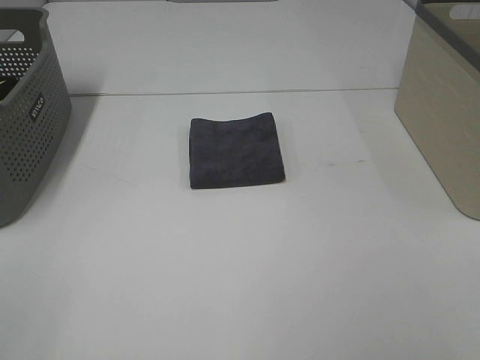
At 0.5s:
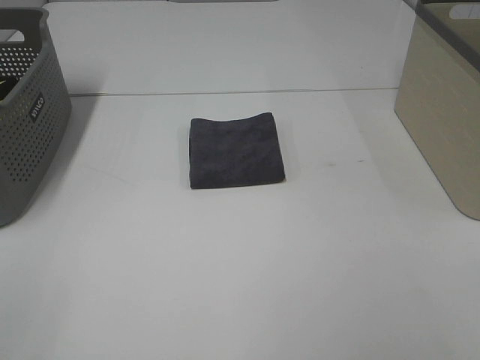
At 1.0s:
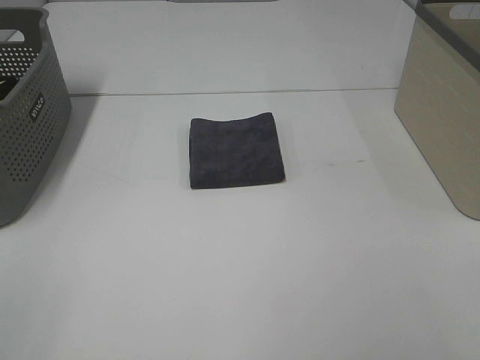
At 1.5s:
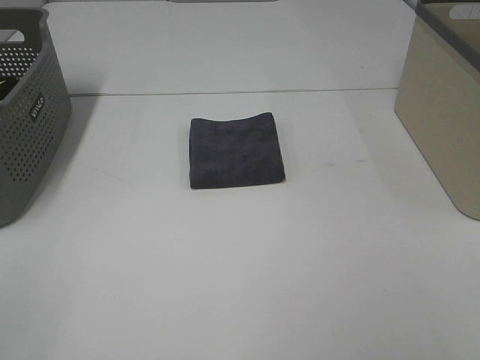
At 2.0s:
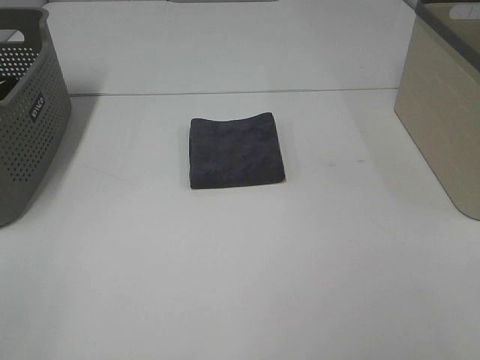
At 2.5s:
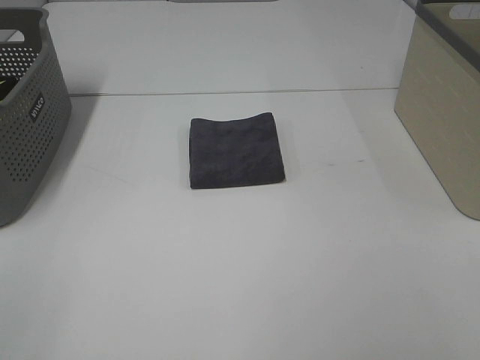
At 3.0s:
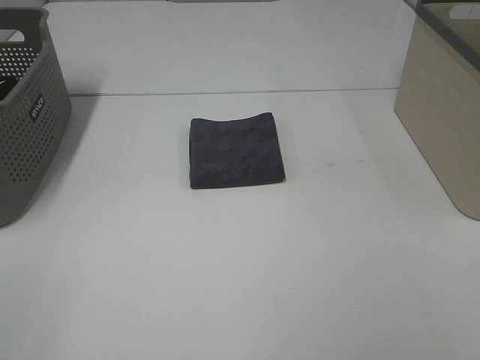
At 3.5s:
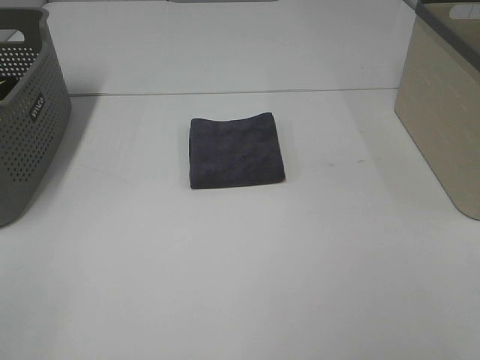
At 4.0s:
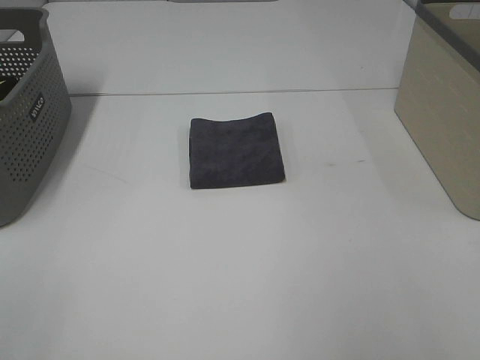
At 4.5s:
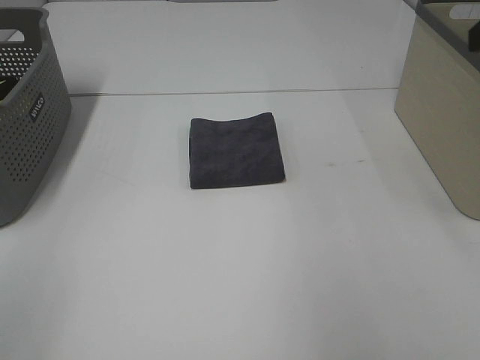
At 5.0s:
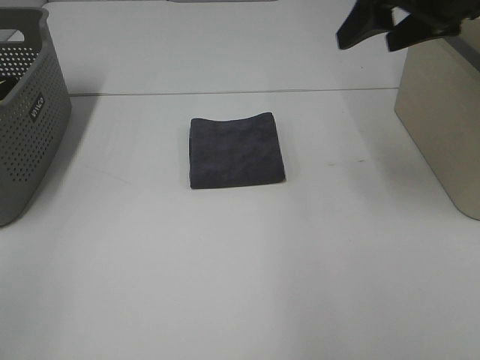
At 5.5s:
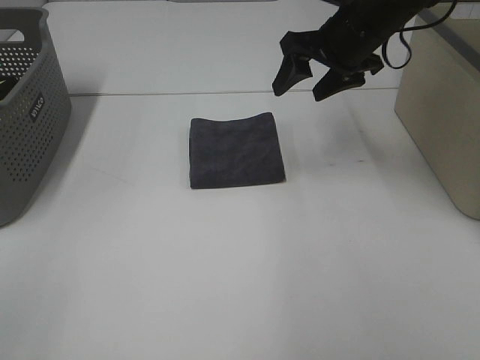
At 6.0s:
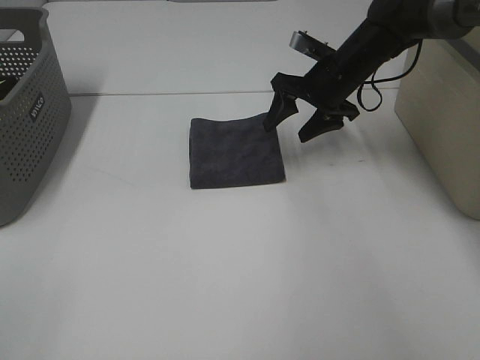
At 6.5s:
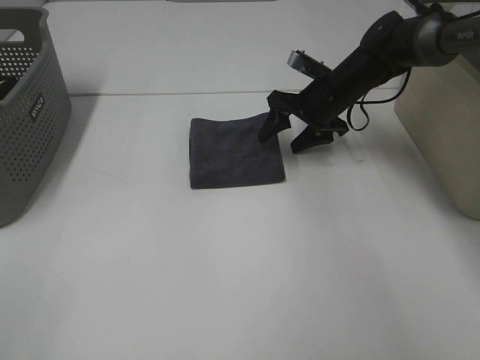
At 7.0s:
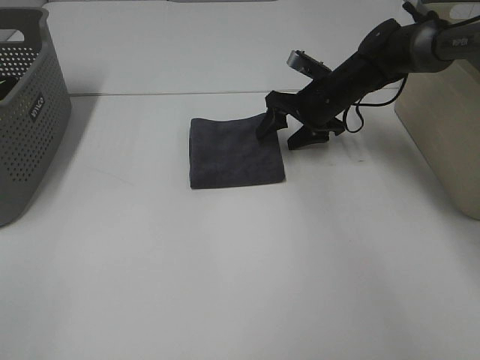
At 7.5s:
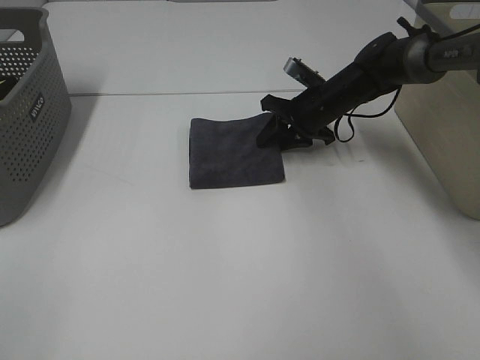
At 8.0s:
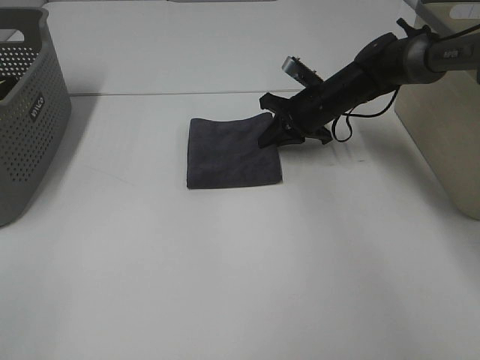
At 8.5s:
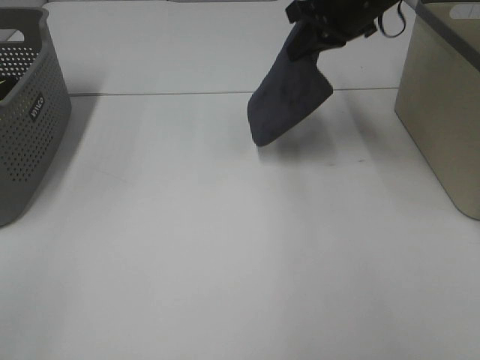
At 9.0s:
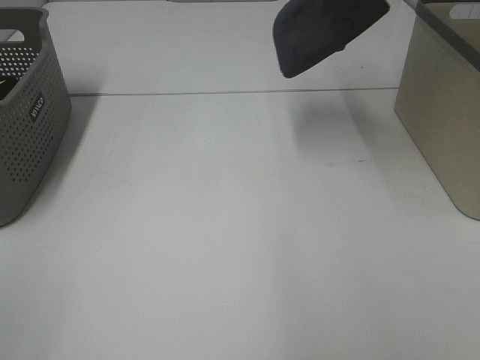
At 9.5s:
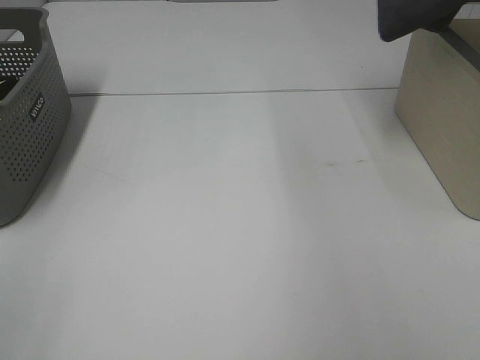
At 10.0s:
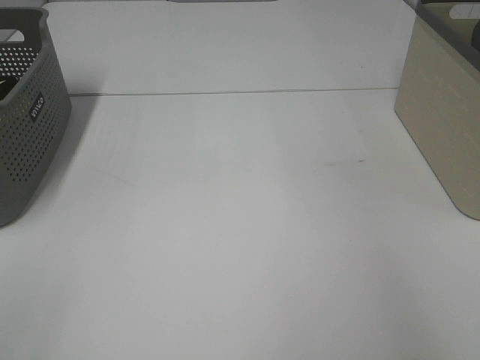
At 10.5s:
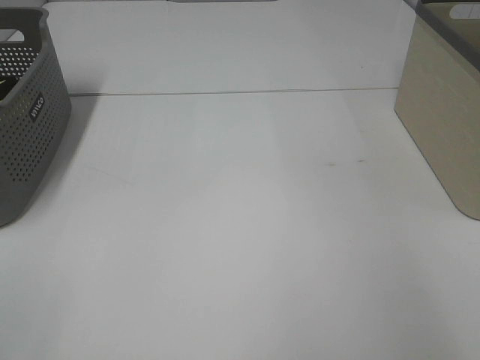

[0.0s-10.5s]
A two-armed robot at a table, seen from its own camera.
Step, 0.0s to 7.5s: Right hand: grab the folded grey towel.
0.0s to 2.0s: The two grippers keep their place.
4.0s to 6.5s: The right gripper is displaced forward and downward by roughly 50 cm.
6.5s to 8.5s: The right gripper is displaced upward by roughly 15 cm, and closes its fingers.
8.5s to 10.5s: The right gripper goes about 25 cm to the right, and opens its fingers.

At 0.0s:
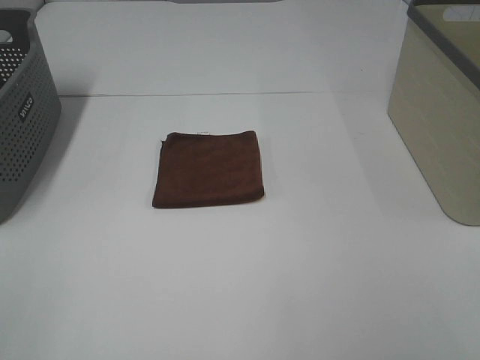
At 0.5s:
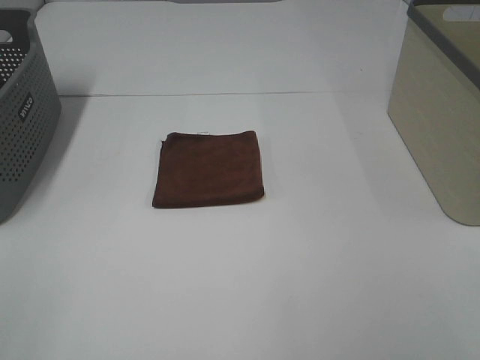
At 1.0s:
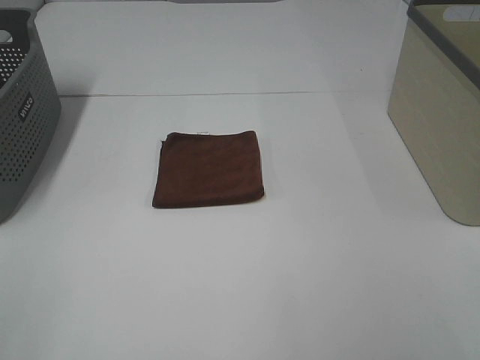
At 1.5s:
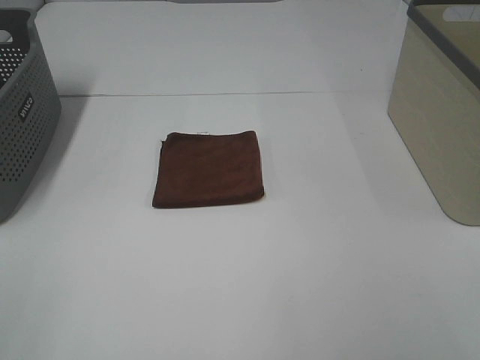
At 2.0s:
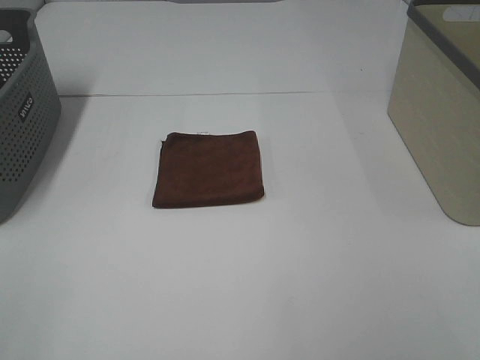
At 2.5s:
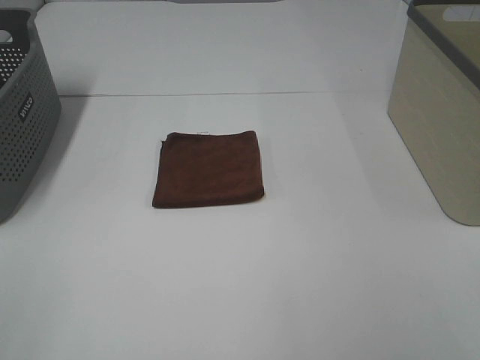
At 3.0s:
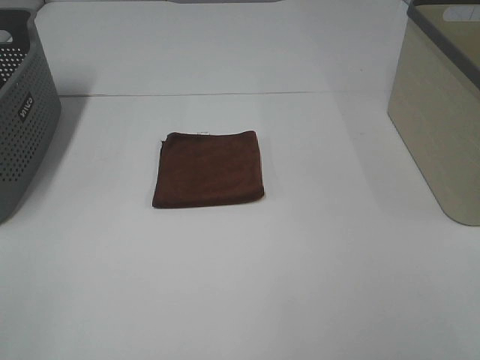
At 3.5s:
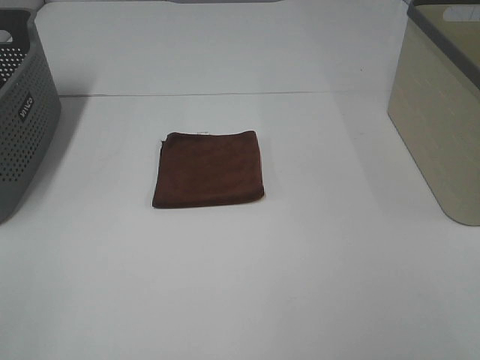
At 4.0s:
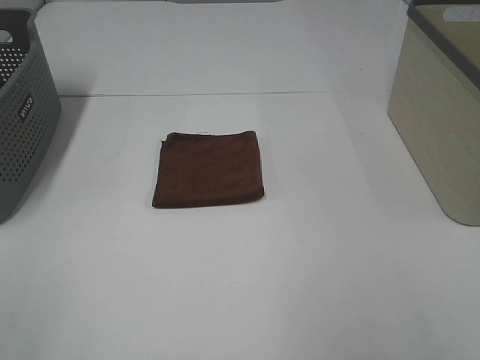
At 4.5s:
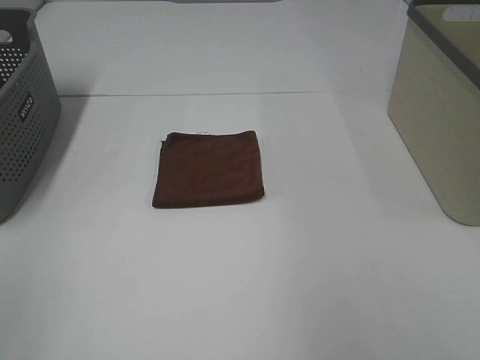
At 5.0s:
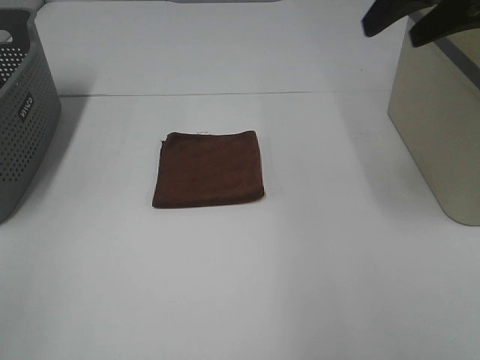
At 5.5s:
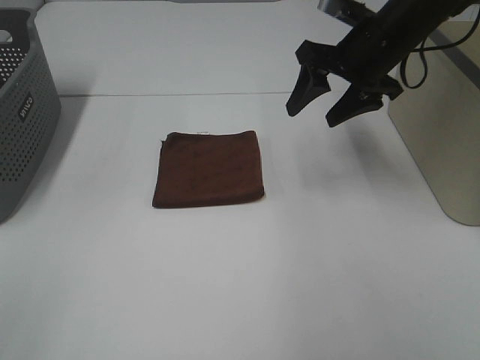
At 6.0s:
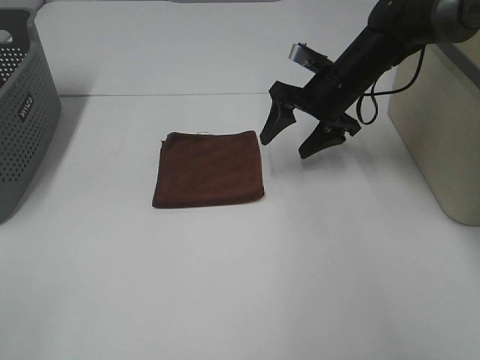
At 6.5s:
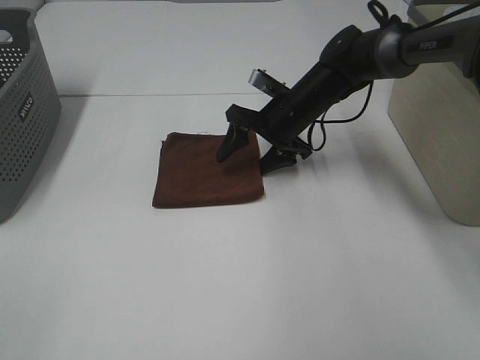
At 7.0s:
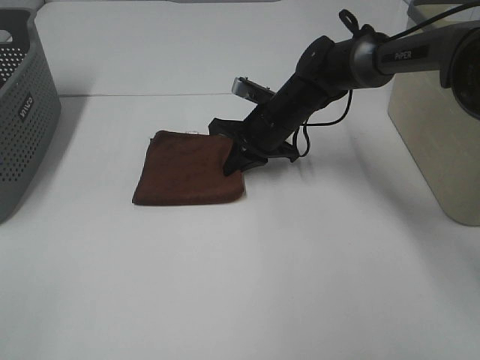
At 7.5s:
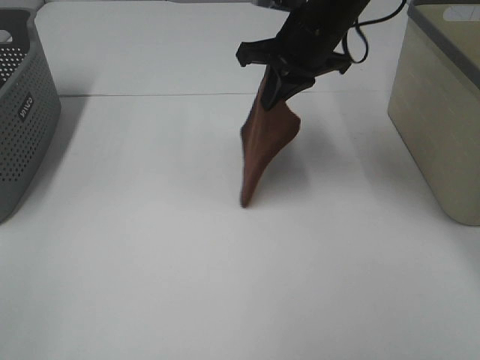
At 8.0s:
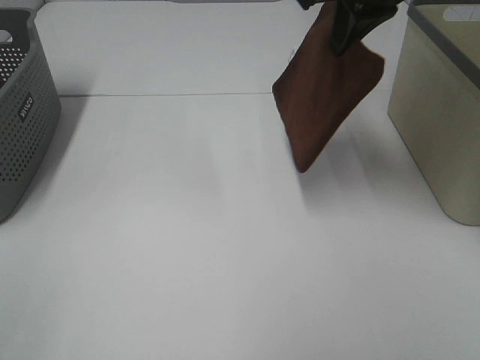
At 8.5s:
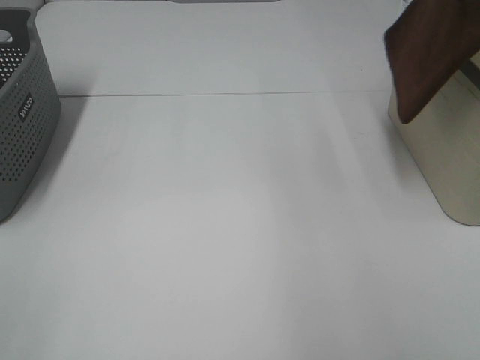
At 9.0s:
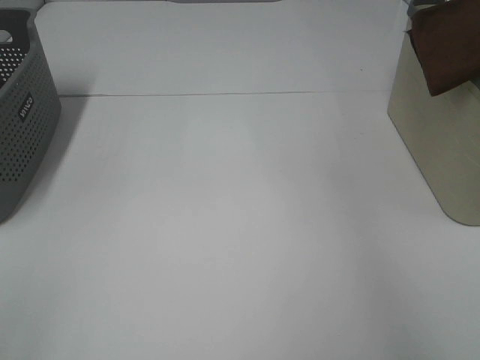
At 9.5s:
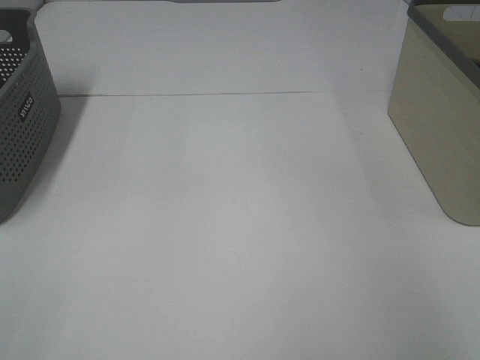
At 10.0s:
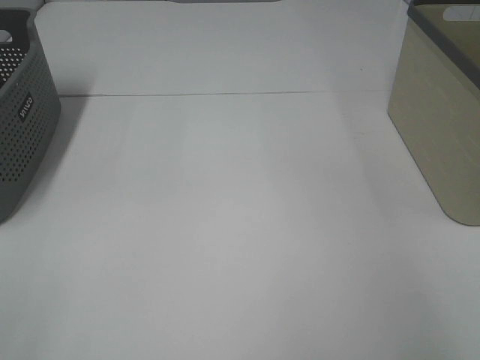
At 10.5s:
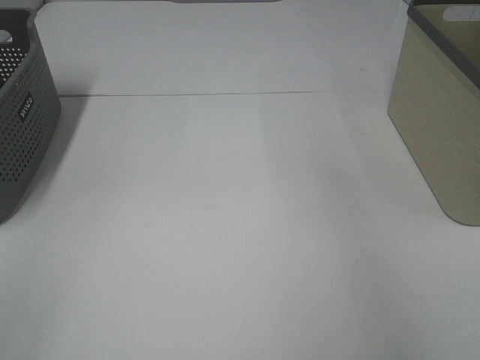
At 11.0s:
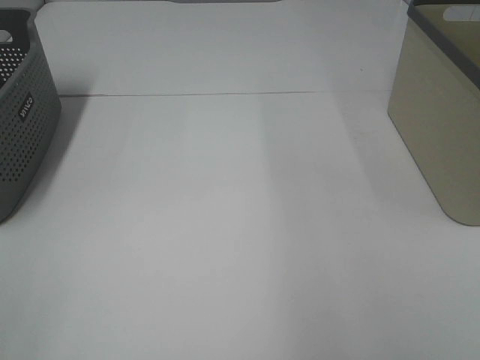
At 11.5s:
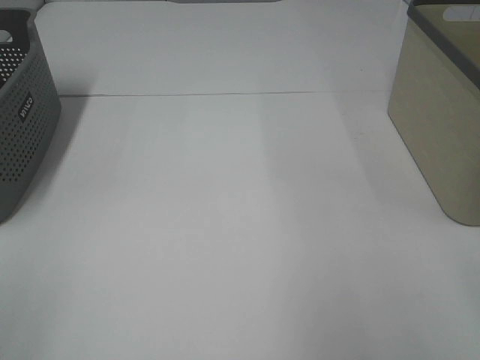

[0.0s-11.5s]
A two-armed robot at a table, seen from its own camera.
Step, 0.0s to 6.5s: Right hand: grab the folded brown towel.
Step, 7.0s to 9.5s: Right hand: place the brown towel in right basket.
0.0s to 2.0s: Both grippers stay put.
4.0s to 6.0s: The right gripper heads forward and downward, covering some 40 cm.
6.0s to 7.5s: The right gripper is displaced upward by about 10 cm, and closes up.
7.5s to 9.5s: The right gripper heads to the right, covering some 30 cm, and opens its fingers.

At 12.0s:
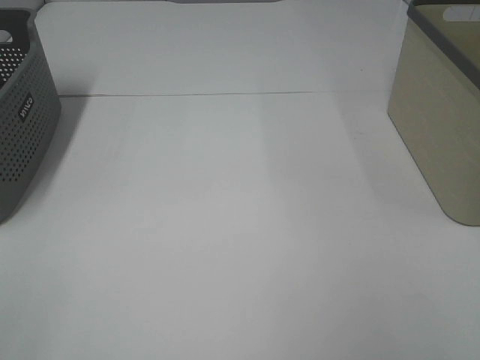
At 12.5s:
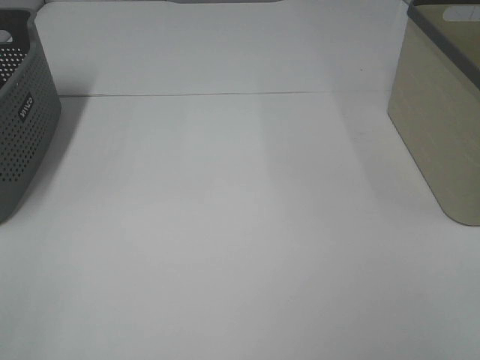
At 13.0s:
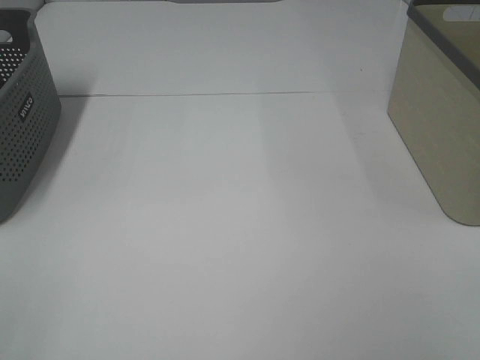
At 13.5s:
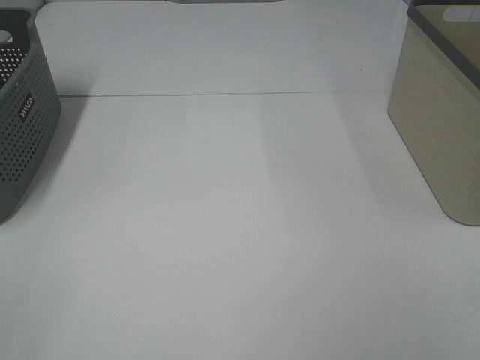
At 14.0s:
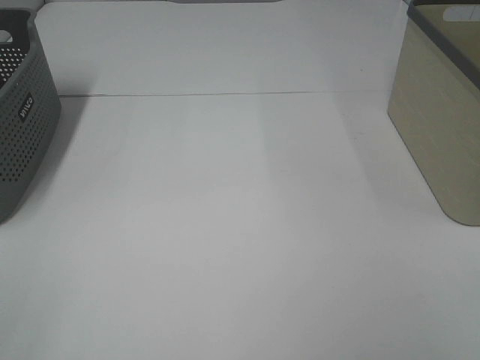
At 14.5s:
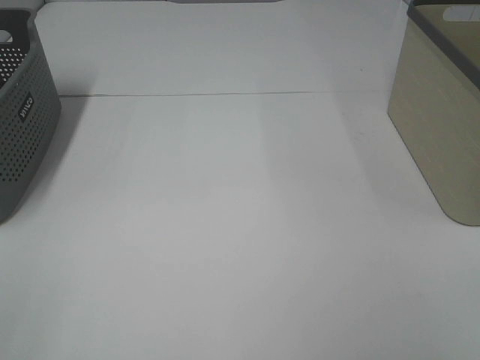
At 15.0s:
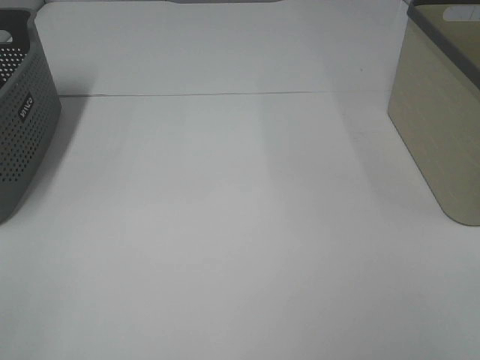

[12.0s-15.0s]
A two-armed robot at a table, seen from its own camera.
13.5s to 15.0s: Both grippers stay put.

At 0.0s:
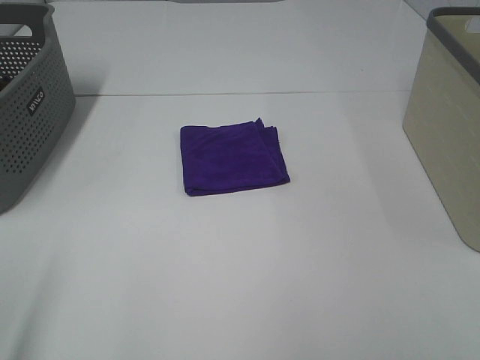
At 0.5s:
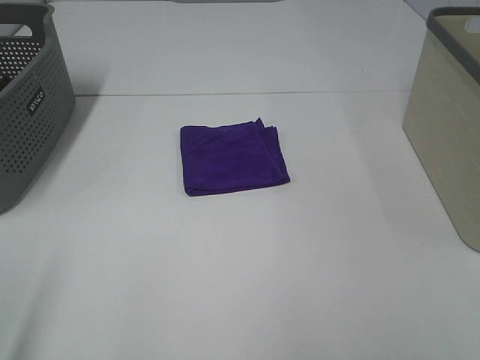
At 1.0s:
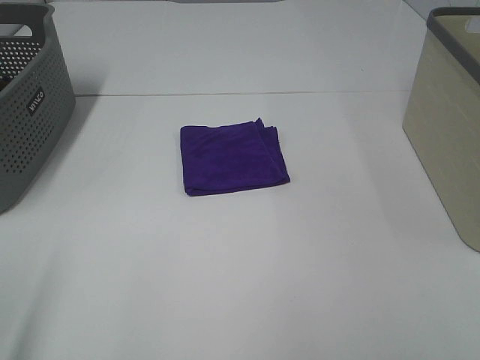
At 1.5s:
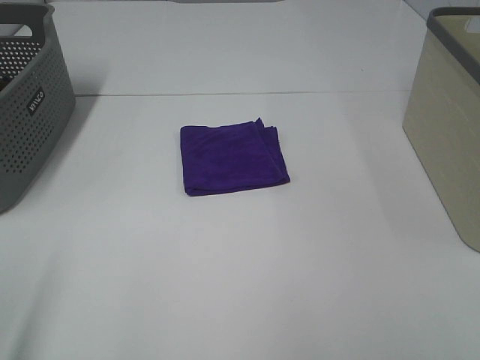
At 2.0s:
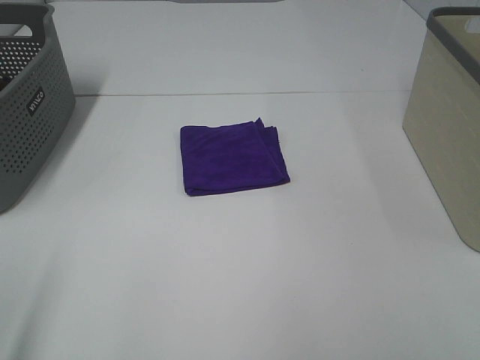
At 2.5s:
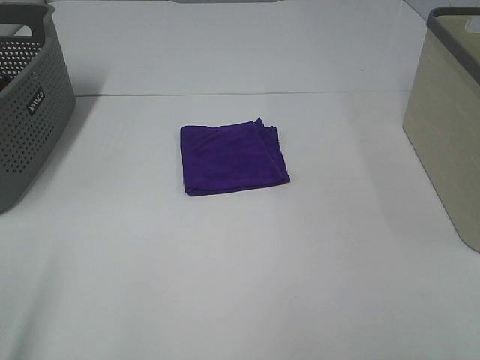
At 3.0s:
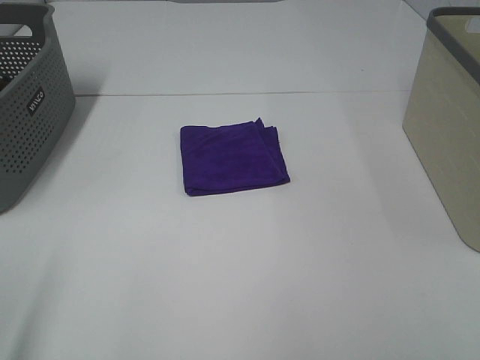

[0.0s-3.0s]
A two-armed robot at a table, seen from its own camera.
0.0s to 3.0s: Neither gripper changes place.
